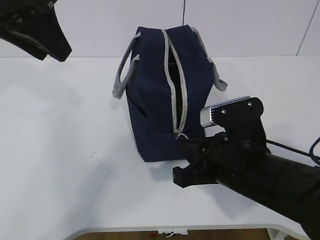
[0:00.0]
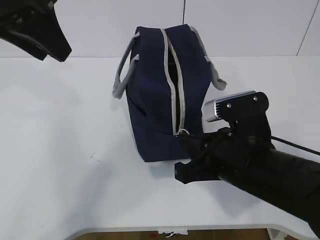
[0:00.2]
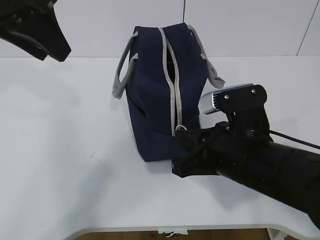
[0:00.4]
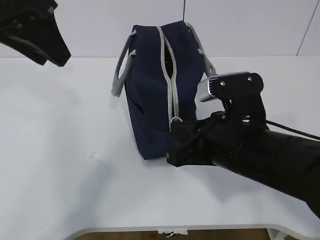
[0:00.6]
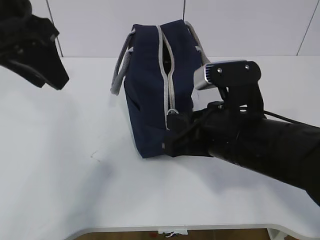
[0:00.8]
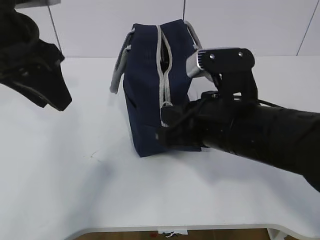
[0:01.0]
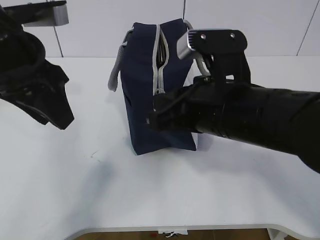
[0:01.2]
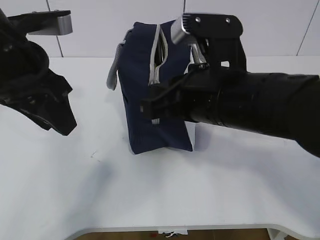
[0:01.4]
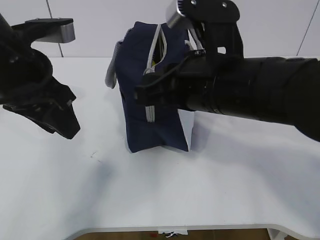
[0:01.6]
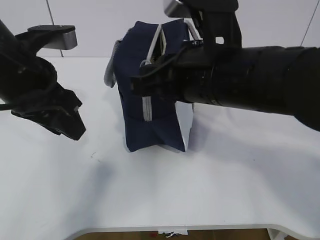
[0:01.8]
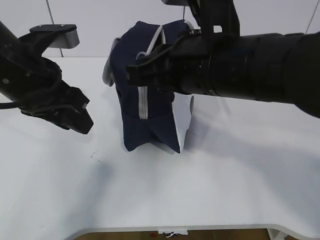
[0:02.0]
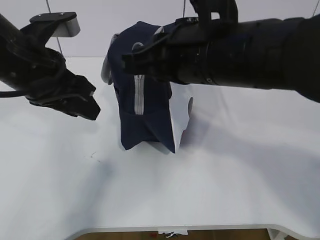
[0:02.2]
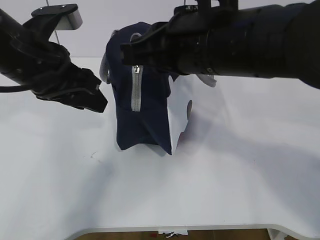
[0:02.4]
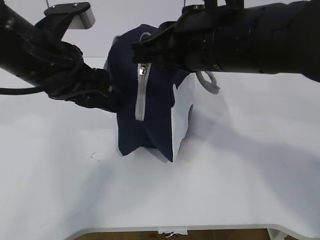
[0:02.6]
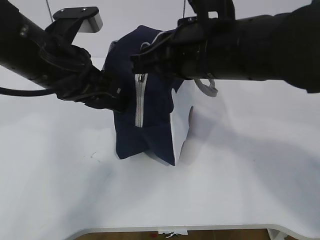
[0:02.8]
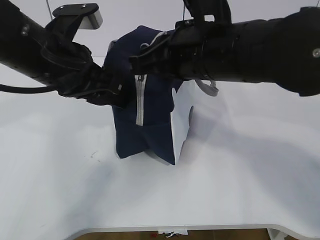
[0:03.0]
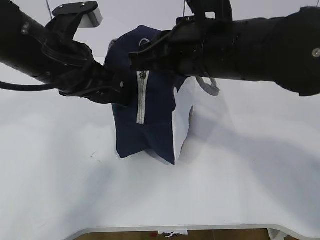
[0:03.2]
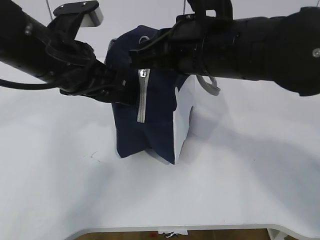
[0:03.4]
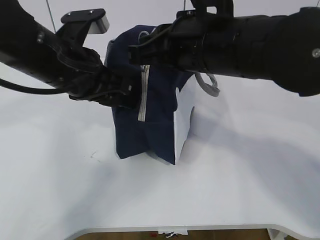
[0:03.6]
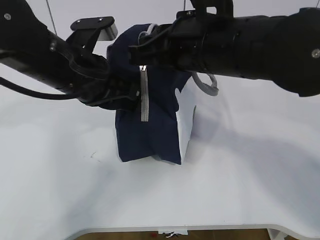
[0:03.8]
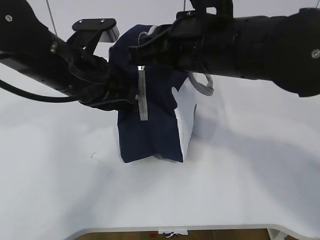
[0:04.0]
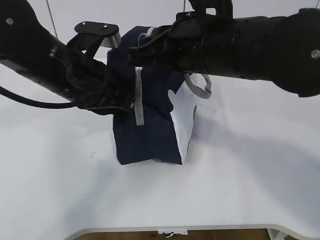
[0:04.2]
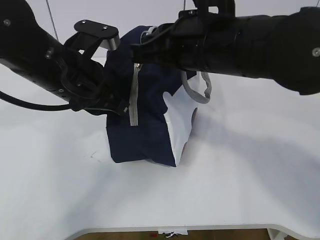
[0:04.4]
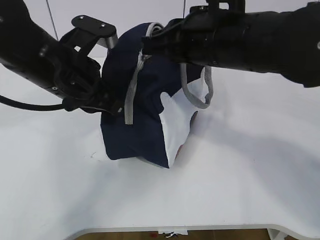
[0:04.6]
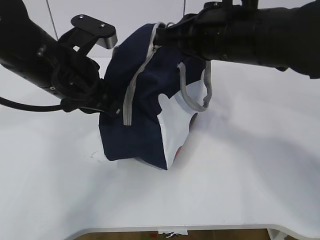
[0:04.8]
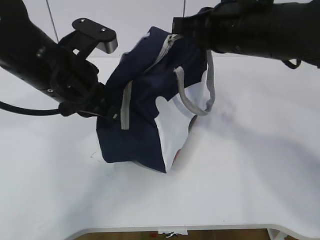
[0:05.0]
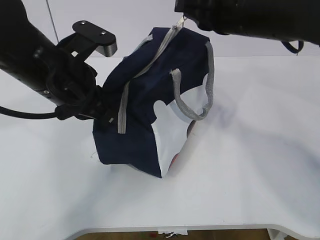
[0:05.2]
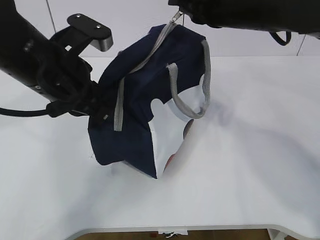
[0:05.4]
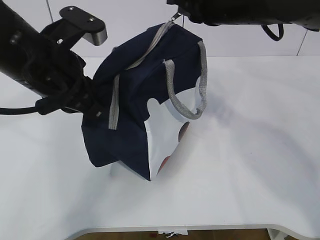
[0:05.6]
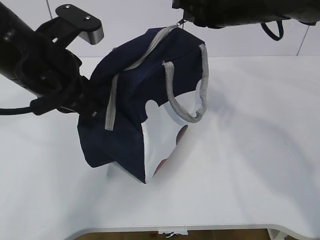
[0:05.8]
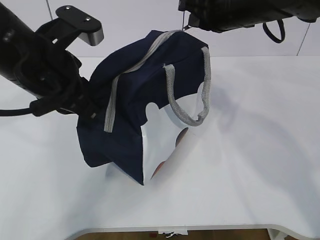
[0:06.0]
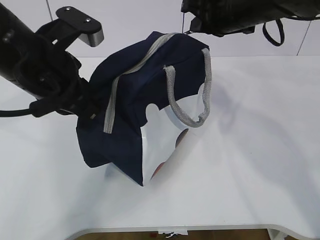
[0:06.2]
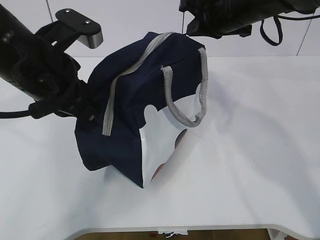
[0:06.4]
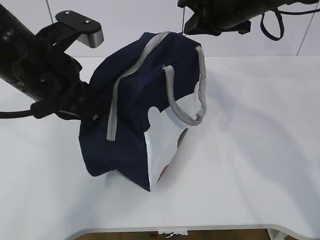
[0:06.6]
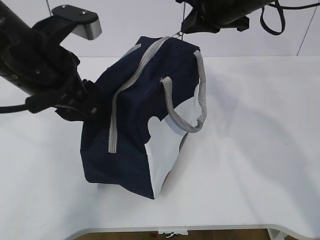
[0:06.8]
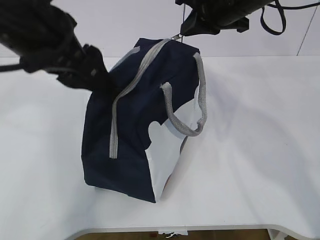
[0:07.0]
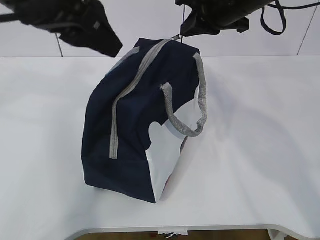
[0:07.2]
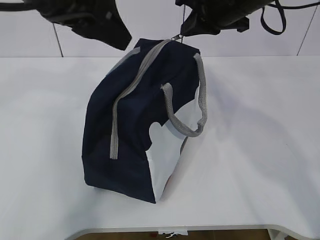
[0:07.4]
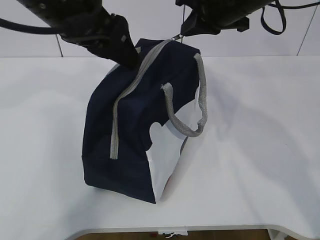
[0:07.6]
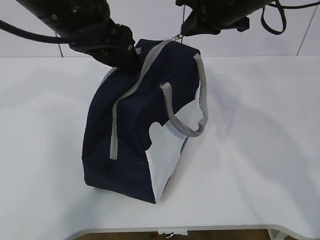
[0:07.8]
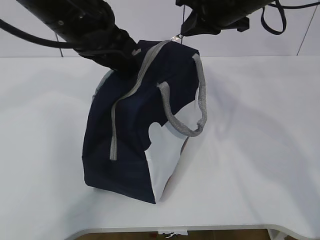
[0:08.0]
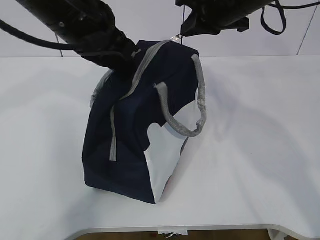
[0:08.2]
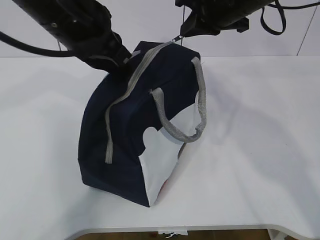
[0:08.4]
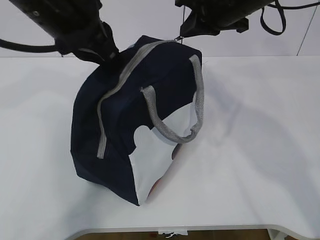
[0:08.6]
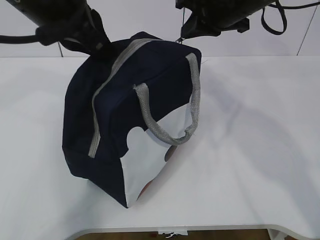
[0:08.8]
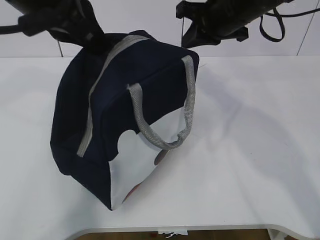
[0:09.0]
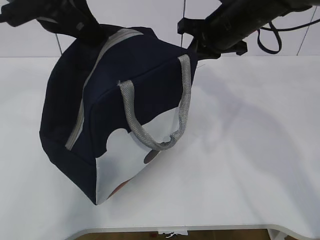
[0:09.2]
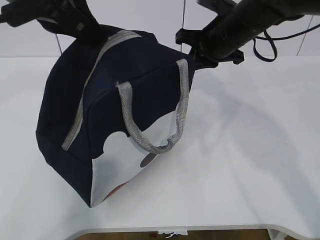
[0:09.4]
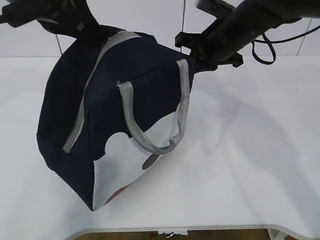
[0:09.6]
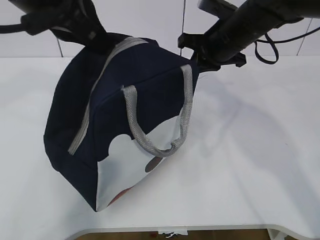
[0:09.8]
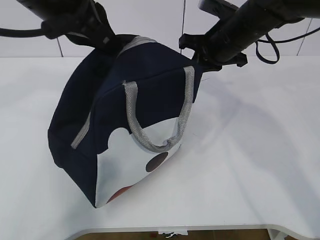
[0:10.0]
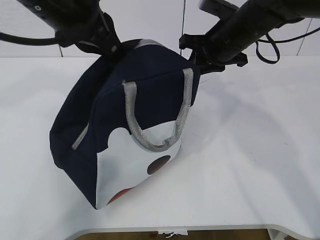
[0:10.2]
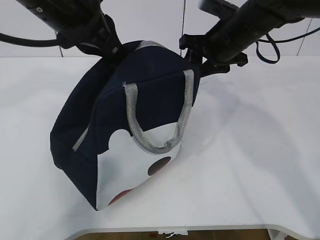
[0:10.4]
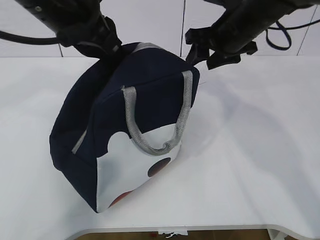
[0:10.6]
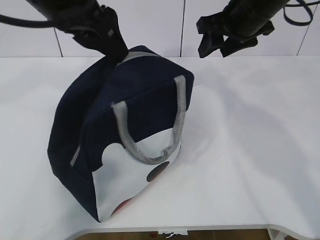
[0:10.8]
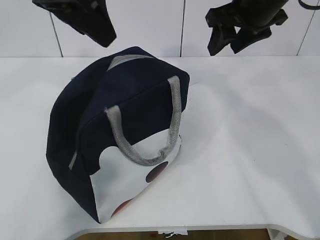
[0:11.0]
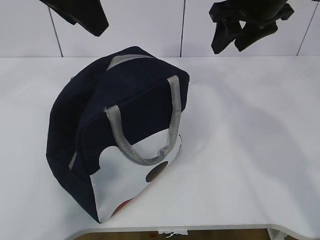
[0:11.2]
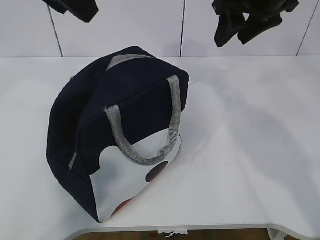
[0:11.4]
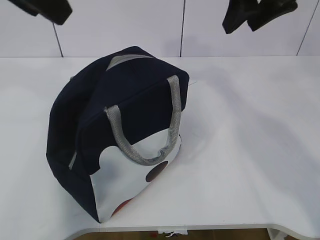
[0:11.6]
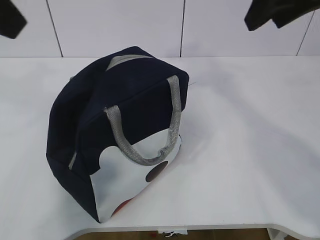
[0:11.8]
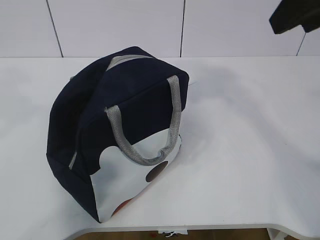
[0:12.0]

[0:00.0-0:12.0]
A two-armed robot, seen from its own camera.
Step, 0:00.0 to 0:01.4: Pull the zipper with your right hand.
Step, 0:01.6 to 0:01.8: Grab the lunch bag with your left hand.
0:00.0 to 0:01.6: The left gripper shifts roughly 10 cm downward; the right gripper shifts roughly 10 cm upward.
0:03.0 to 0:04.4: The left gripper closes its fingers.
0:04.4 to 0:06.0: The right gripper travels forward and to the right by roughly 15 cm.
0:06.0 to 0:07.6: The left gripper shifts approximately 5 cm upward, and opens up.
0:07.6 to 0:09.0: The left gripper closes.
0:09.0 to 0:10.4: The right gripper changes place by roughly 5 cm, and opens its fingers.
0:10.4 to 0:12.0: The left gripper heads backward, to the left and upward, covering approximately 20 cm, and opens. The right gripper moves backward and upward, about 25 cm.

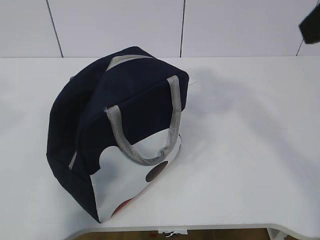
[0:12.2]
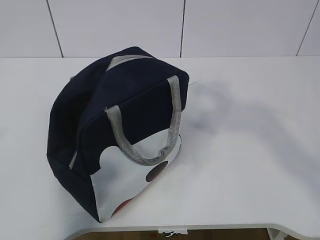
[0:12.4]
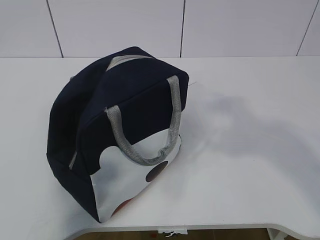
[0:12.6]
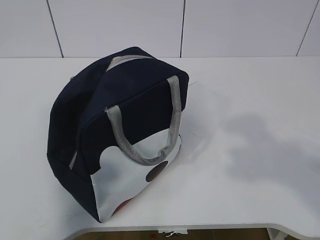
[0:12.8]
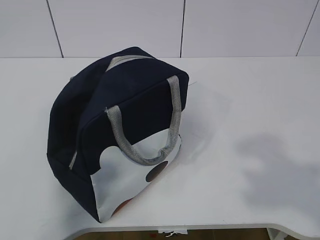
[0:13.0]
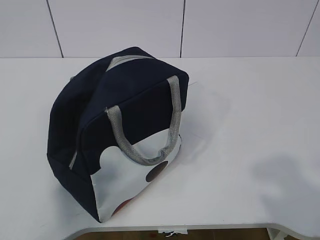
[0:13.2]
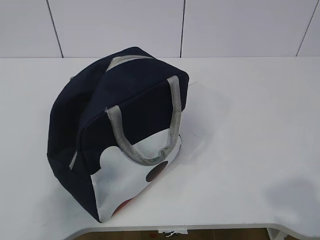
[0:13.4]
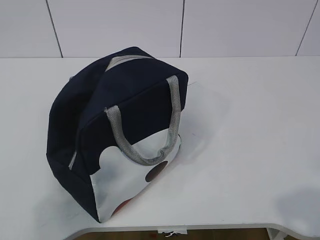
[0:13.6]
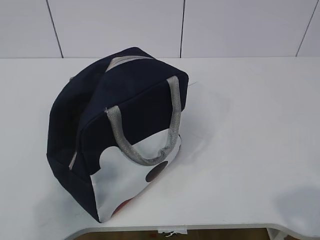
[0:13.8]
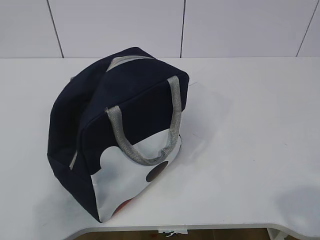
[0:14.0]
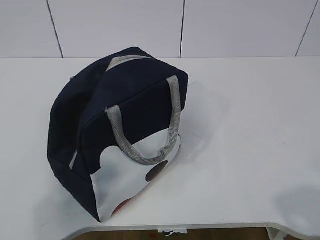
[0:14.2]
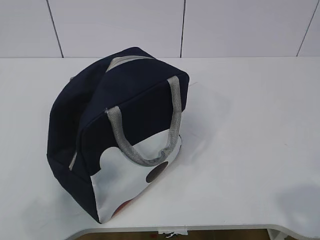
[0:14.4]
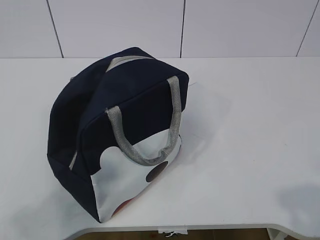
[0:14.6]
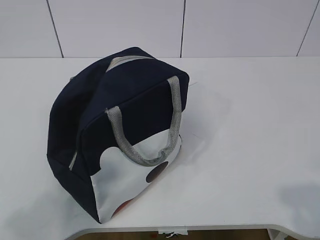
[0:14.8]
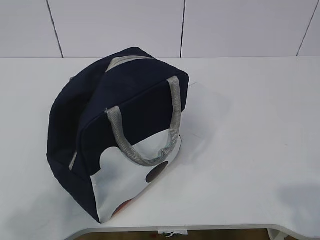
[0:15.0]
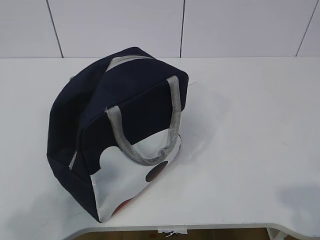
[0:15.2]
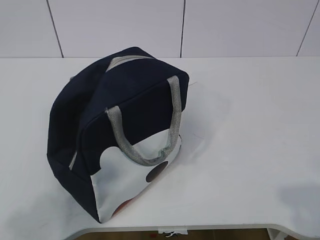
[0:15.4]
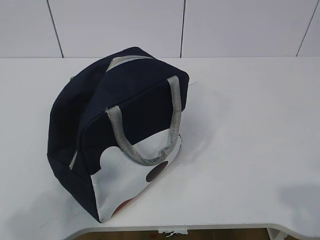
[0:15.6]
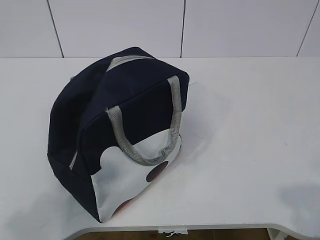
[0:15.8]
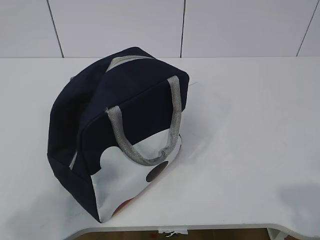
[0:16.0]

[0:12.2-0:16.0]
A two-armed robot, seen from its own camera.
0:12.2 to 0:13.4: The right gripper travels backward and downward by approximately 25 cm. The left gripper travels downward, backward and to the left by some 20 cm.
0:14.8 to 0:16.0: Both grippers stay put.
